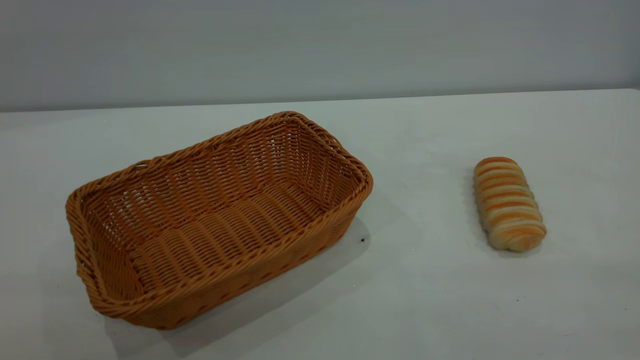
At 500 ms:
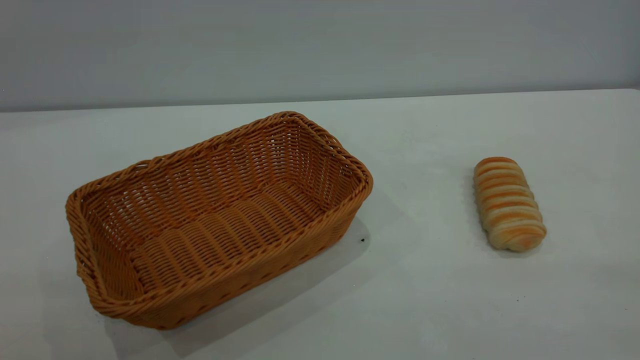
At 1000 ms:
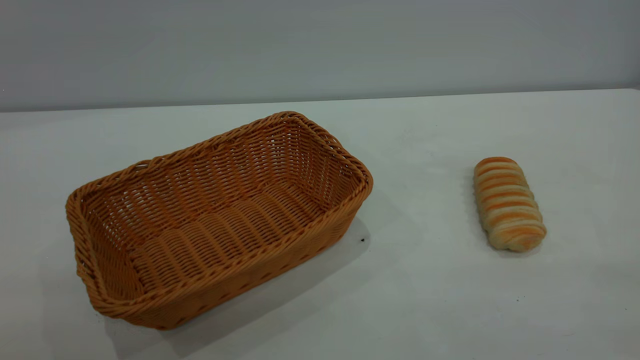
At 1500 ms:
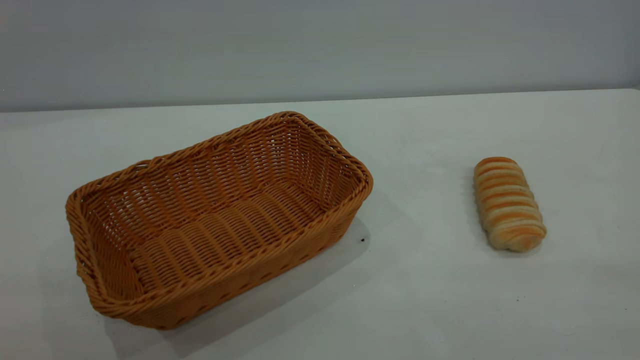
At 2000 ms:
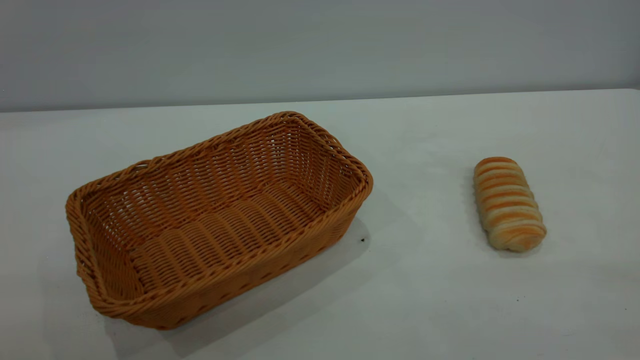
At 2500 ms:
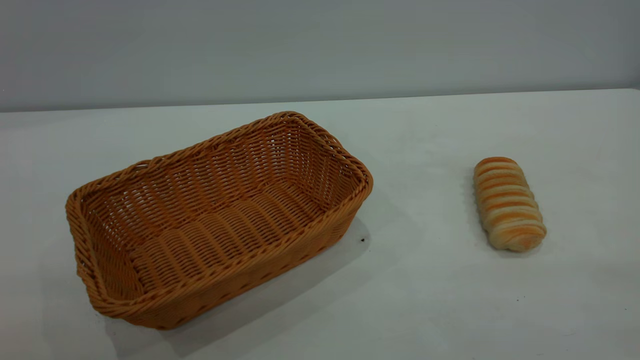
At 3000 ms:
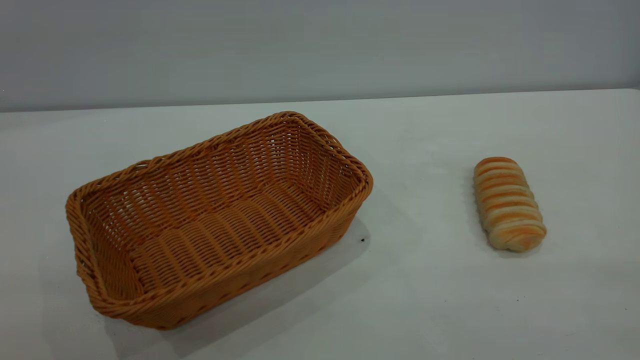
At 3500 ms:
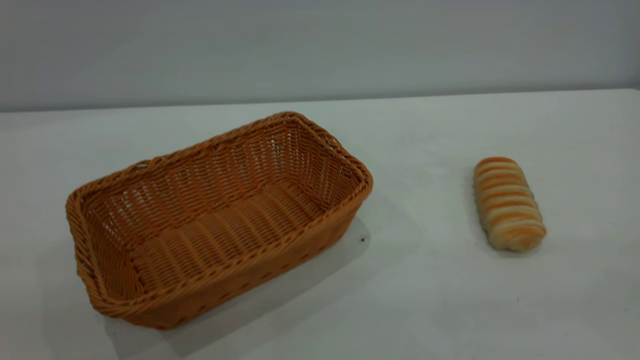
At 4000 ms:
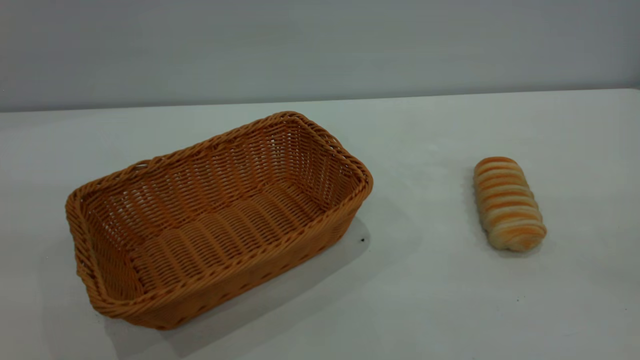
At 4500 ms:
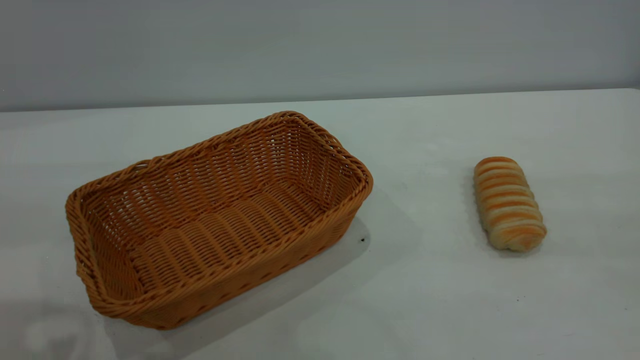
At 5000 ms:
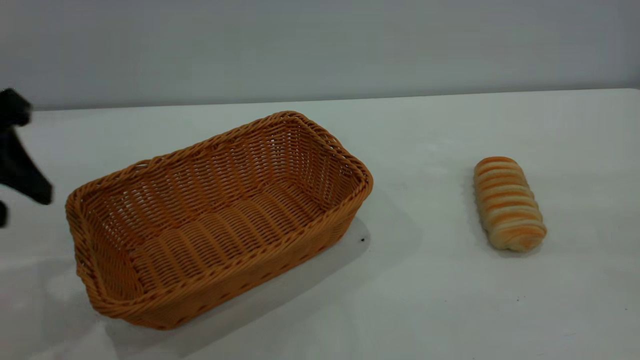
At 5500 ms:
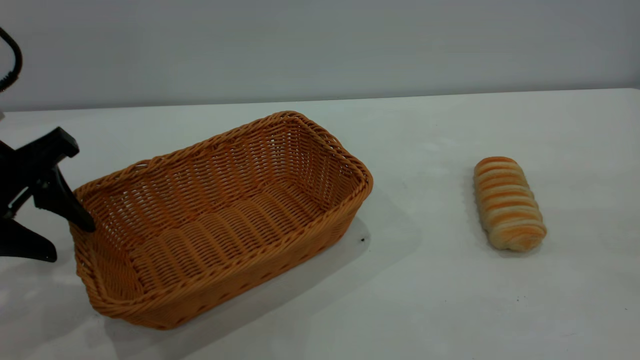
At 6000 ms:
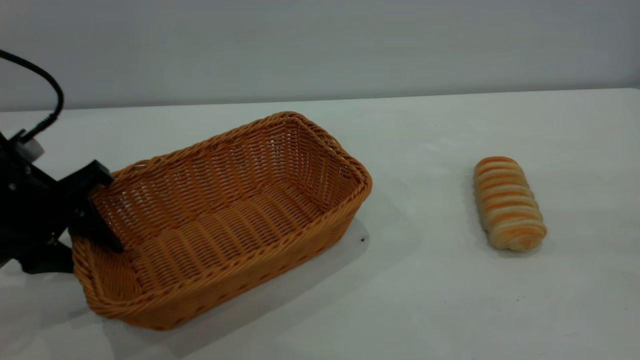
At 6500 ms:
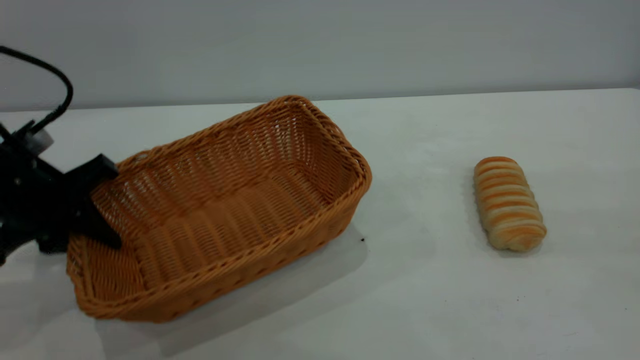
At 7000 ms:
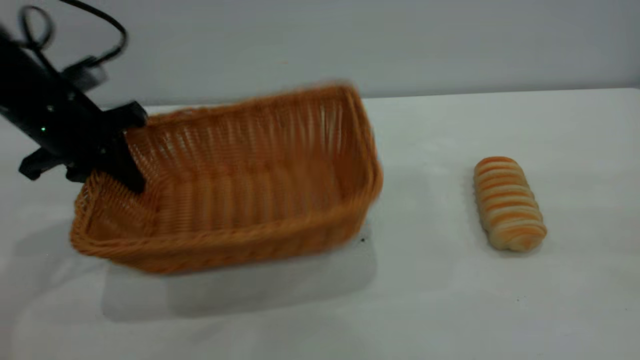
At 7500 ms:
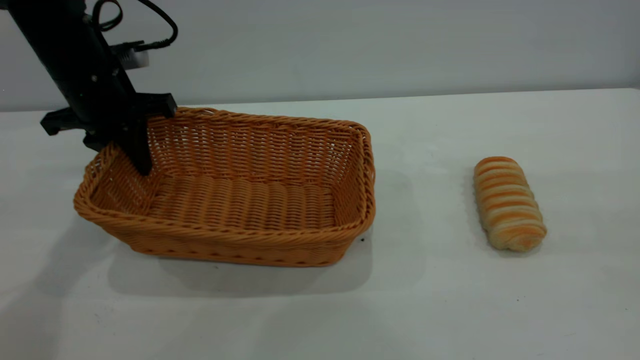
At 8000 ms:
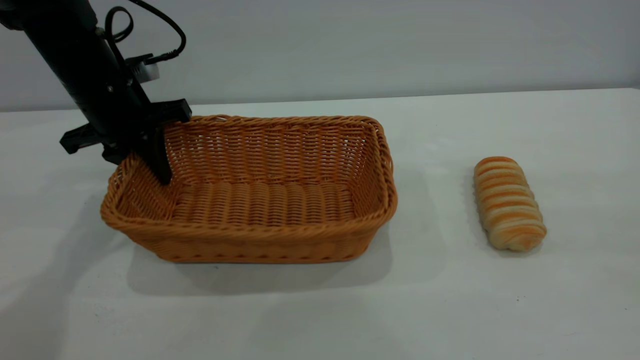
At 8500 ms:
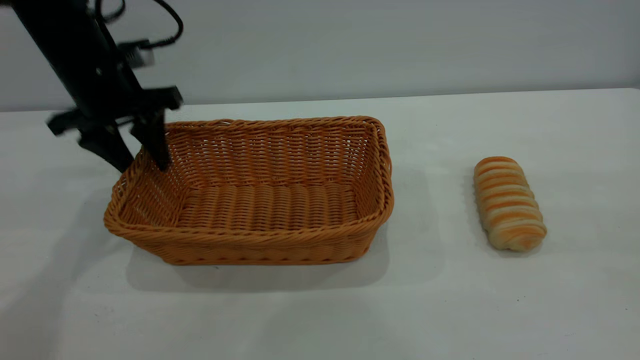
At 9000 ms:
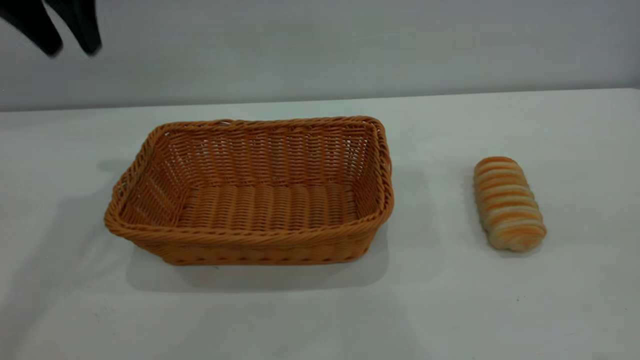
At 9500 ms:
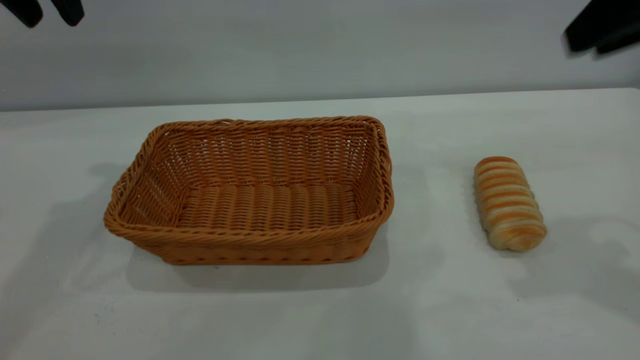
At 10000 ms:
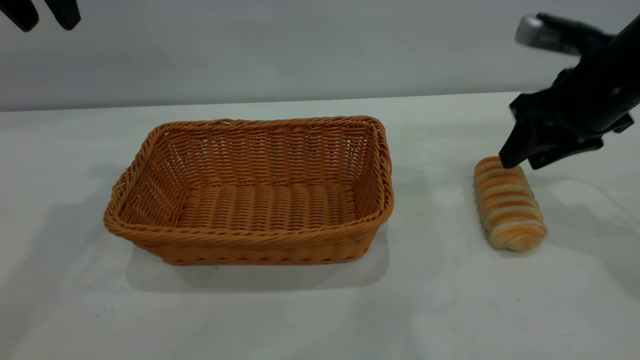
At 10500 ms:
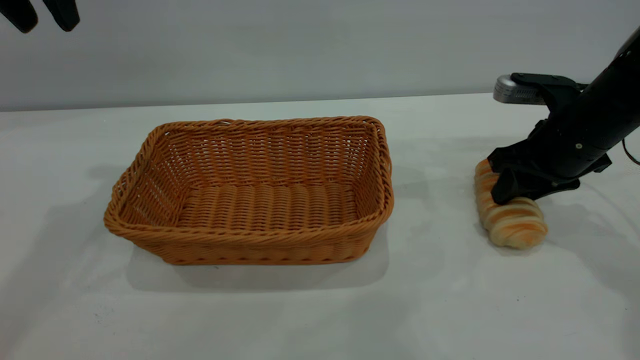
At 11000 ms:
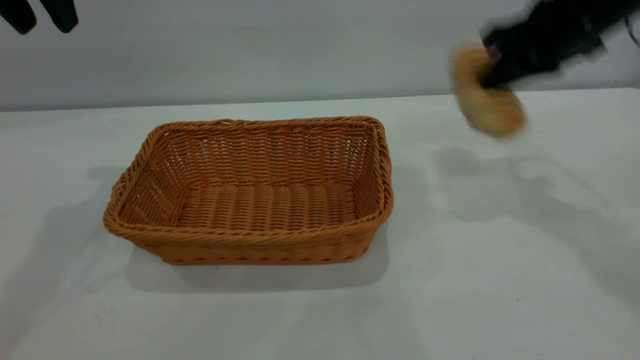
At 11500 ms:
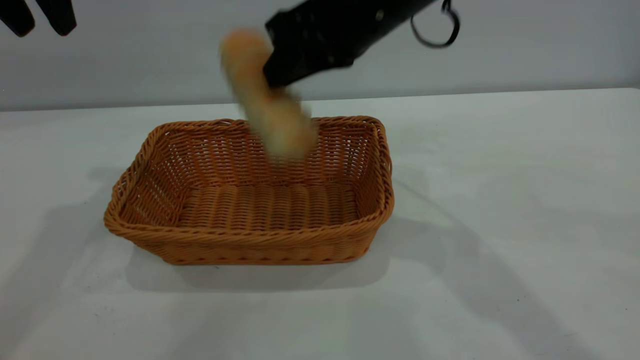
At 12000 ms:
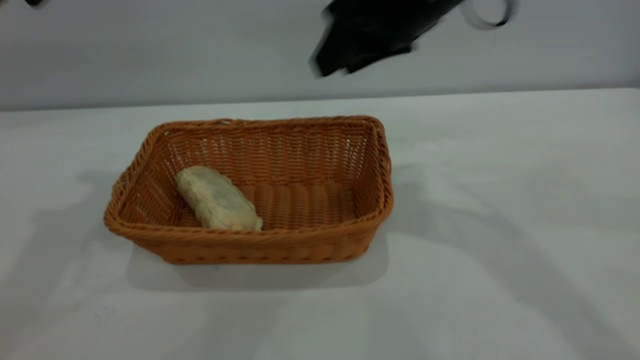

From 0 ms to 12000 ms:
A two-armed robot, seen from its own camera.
Task of the whole recording: One hand grasps the yellow basket and places it in the middle of the table, while the other hand picks up the long bread and puts it into the yellow basket.
Step, from 0 ms to 8500 ms: Move the basket to the center of view.
Step, from 11000 ms to 11500 ms: place the bread into the basket.
From 0 ms to 2000 ms: Both grippers stay put.
From 4000 ms to 6000 ms: The left gripper is displaced downward and forward by about 30 cm, and closes up.
From 6000 ms to 8000 ms: The left gripper travels forward by about 15 cm, and closes.
From 8000 ms to 10000 ms: The left gripper heads upward, covering roughly 20 cm, and opens; the right gripper shifts approximately 35 cm forward and downward.
From 10000 ms to 12000 ms: The right gripper heads to the left and upward, covering roughly 20 cm, and closes, then reopens.

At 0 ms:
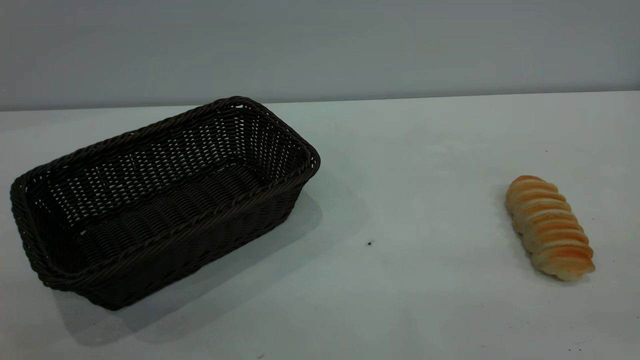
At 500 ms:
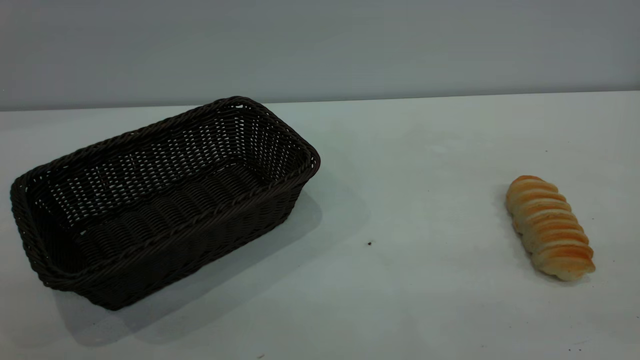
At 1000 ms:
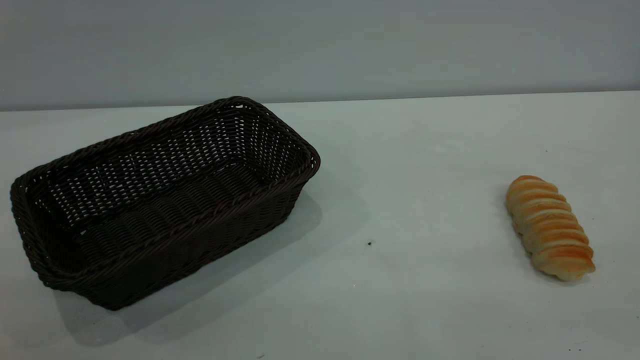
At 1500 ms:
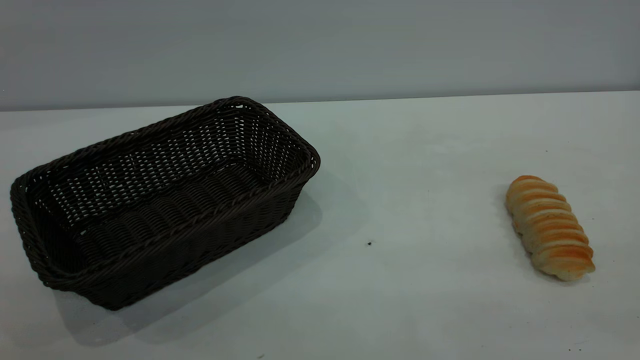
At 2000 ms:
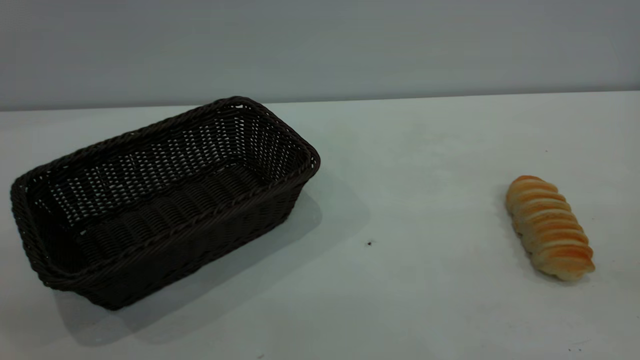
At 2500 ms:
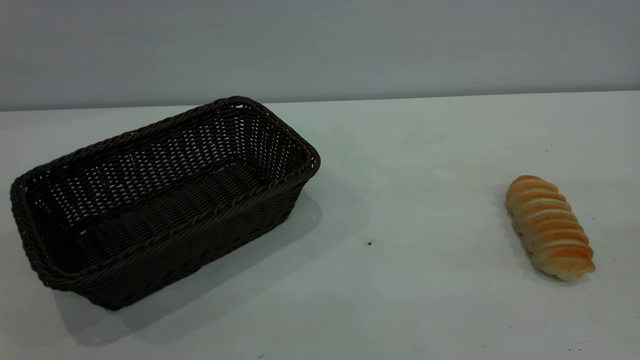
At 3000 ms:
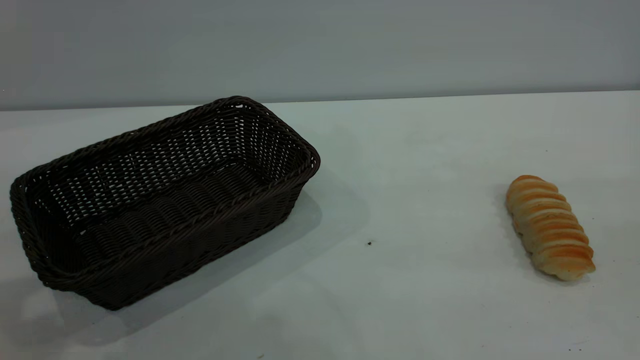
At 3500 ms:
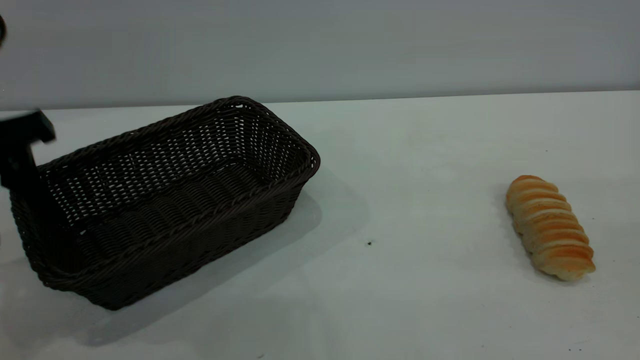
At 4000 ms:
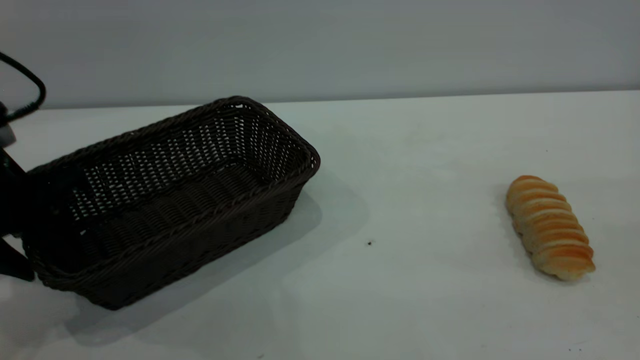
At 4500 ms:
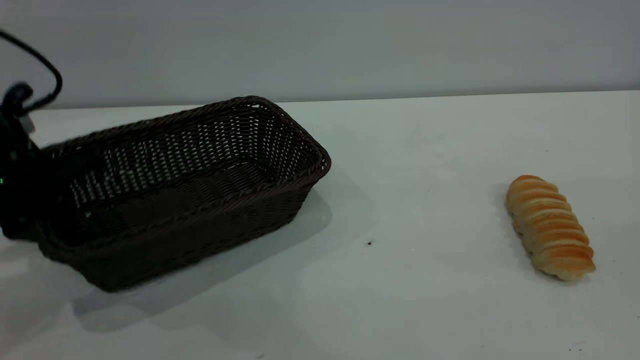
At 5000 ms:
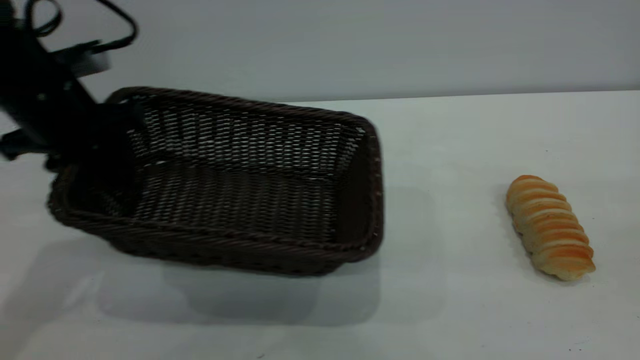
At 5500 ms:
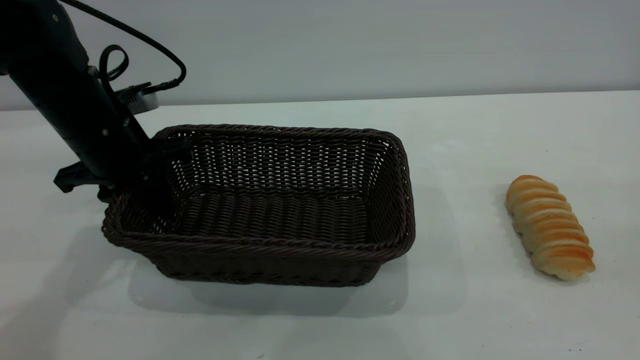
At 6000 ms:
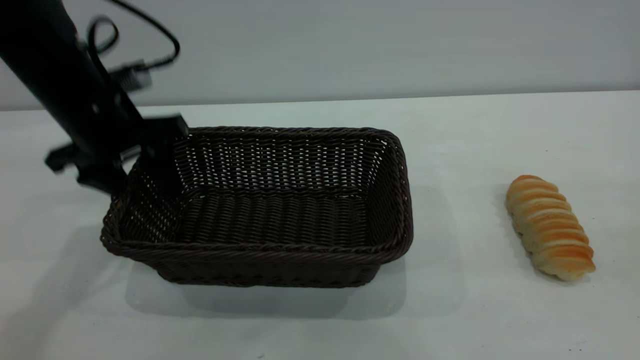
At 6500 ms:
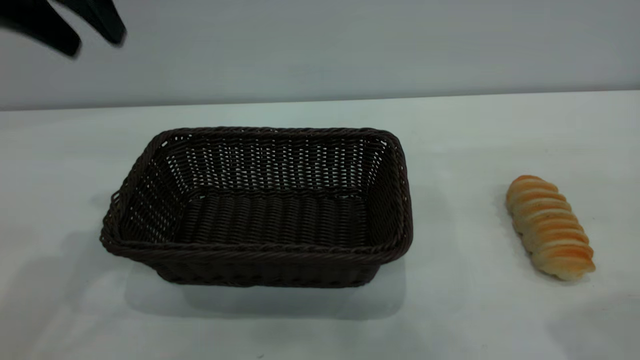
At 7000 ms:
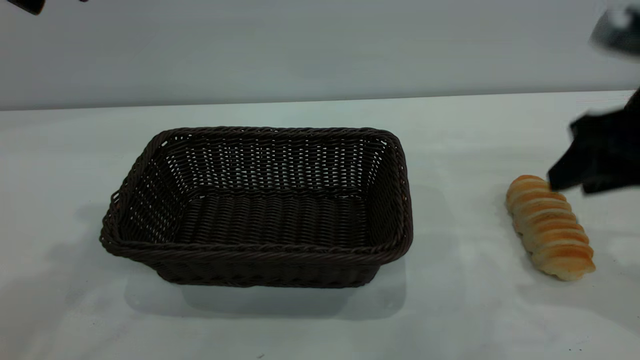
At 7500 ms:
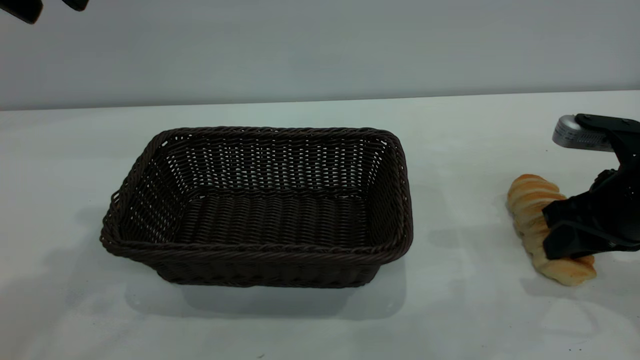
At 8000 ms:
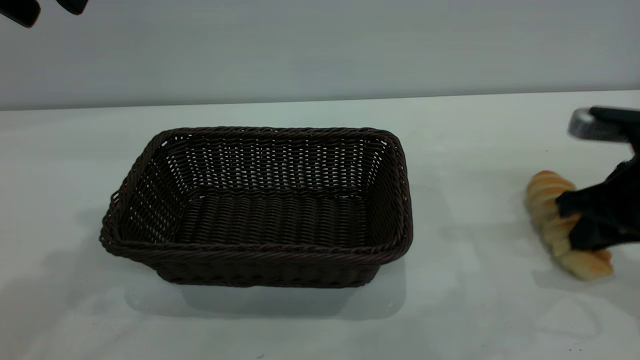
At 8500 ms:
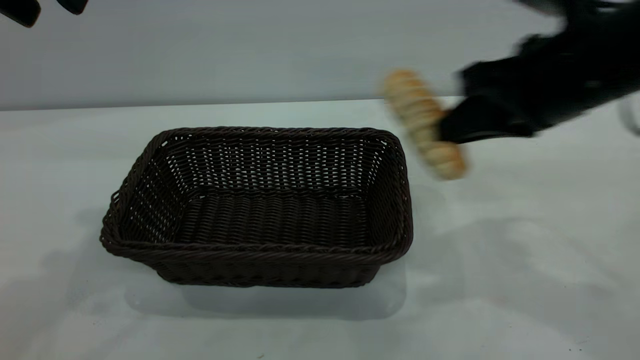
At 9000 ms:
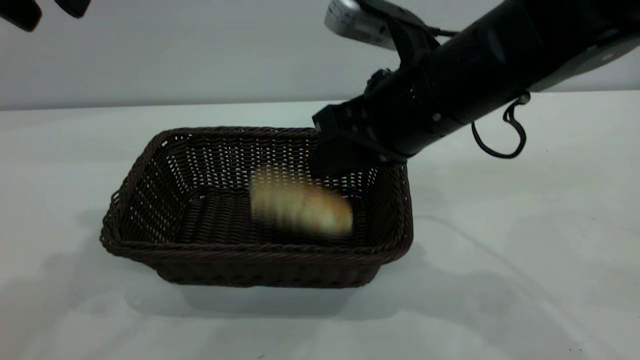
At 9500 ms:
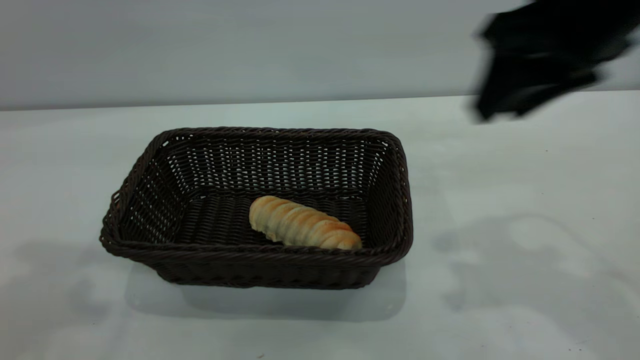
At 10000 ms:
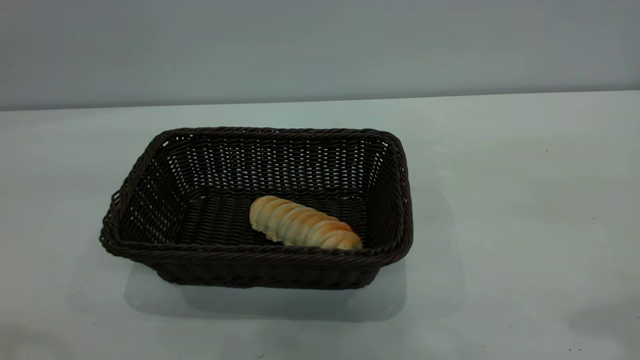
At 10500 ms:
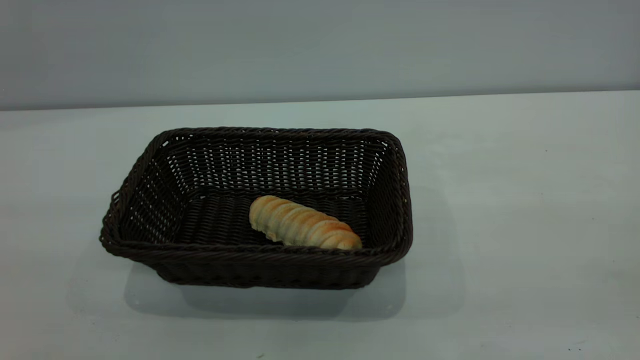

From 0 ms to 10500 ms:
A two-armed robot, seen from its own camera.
Task of the whole recording: One hand grasps the black basket and places it in the middle of the table, while the other hand picks up the long bread and puts it into the black basket.
Step, from 0 ms to 6000 ms: Move the basket to the center of view.
Step, from 8500 ms to 9000 ms: place the bread into the basket.
From 2000 ms to 4000 ms: The left gripper is displaced forward and downward by about 35 cm, and opens its fingers.
From 4000 ms to 6500 ms: The right gripper shifts about 15 cm forward and downward, while the left gripper swings up and down, approximately 20 cm each way, with 2 reversals, and closes, then reopens.
From 6500 ms to 8500 ms: The right gripper moves forward, downward and to the left, approximately 15 cm, and closes up.
From 8500 ms to 10500 ms: The right gripper travels backward, upward and to the right by roughly 30 cm, and opens. The left gripper heads backward, covering roughly 25 cm.
